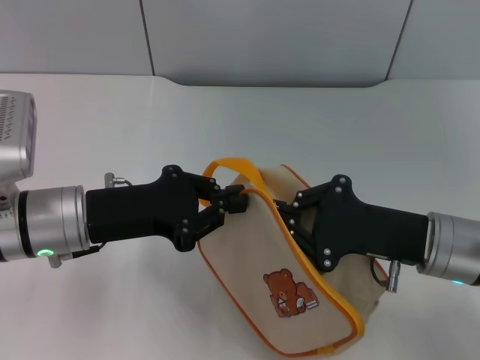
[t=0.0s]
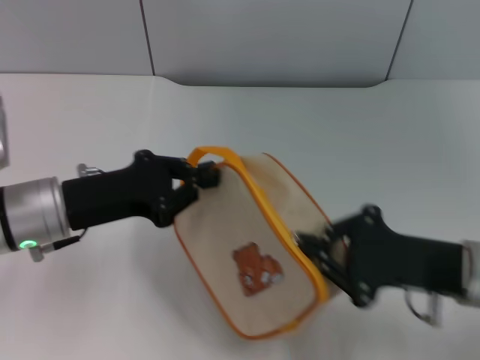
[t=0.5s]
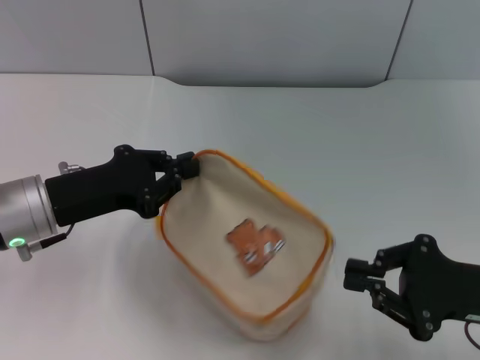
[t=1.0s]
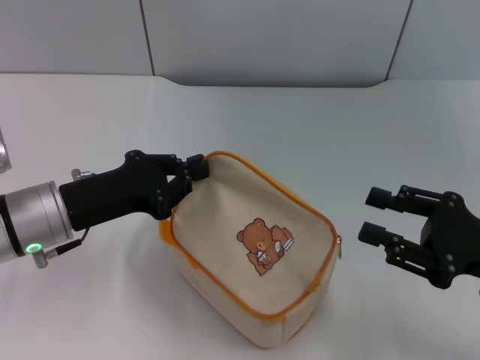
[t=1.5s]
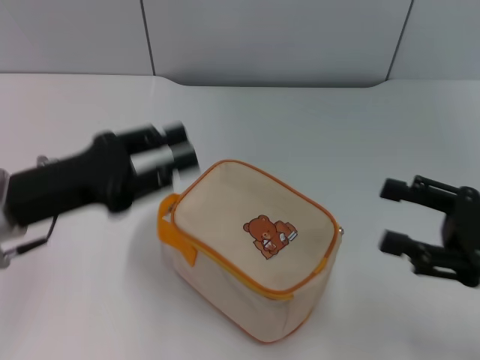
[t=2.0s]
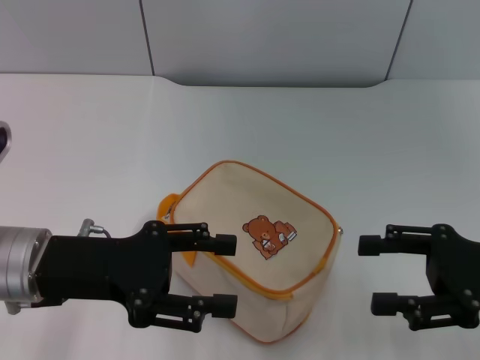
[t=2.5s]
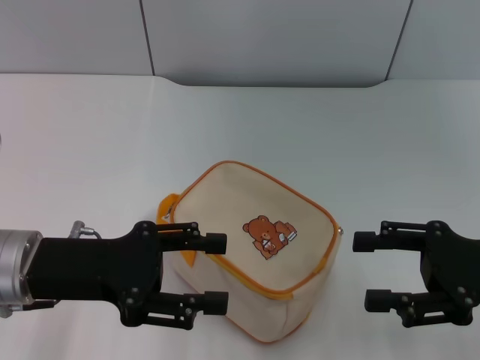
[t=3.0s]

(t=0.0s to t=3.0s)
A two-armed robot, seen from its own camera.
Step, t=1.5s - t=2.0s: Place the bag on the table with left gripper.
t=0.0s - t=1.5s: The right gripper moves to the right, about 10 cm.
t=1.5s - t=3.0s: The right gripper opens its fingers; the left gripper opens its fingers.
